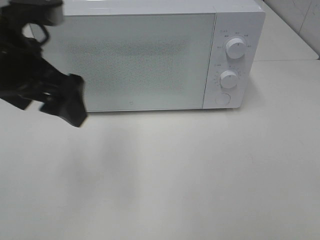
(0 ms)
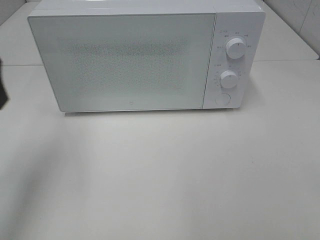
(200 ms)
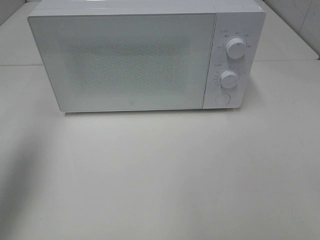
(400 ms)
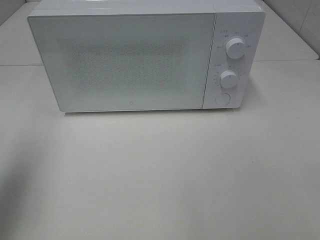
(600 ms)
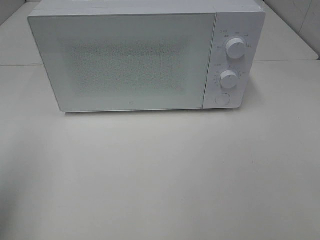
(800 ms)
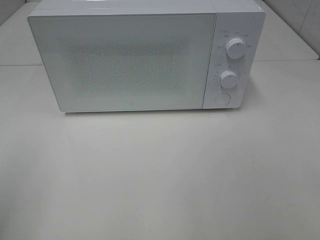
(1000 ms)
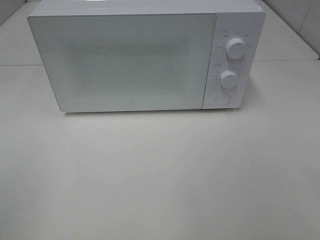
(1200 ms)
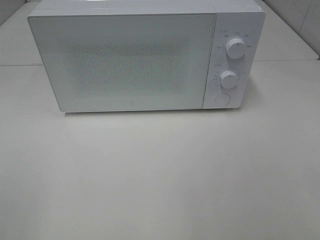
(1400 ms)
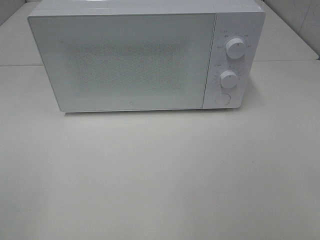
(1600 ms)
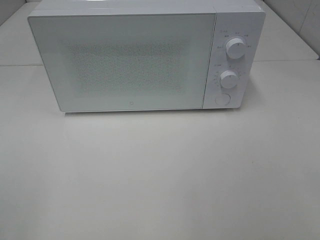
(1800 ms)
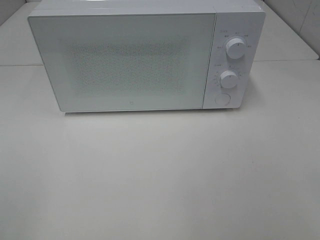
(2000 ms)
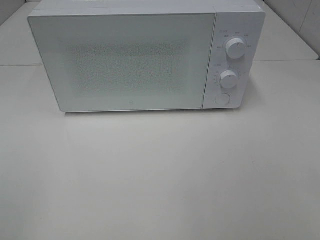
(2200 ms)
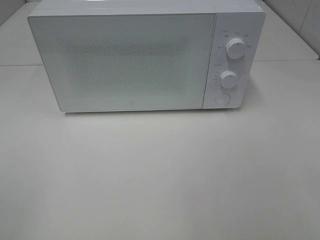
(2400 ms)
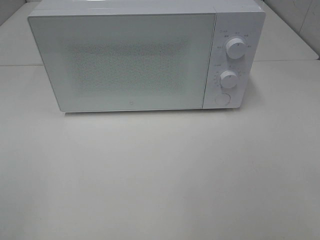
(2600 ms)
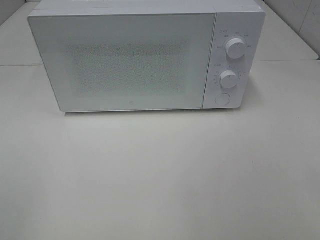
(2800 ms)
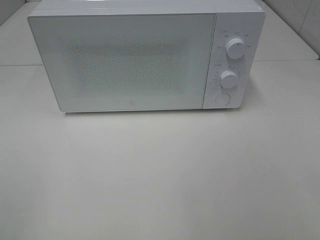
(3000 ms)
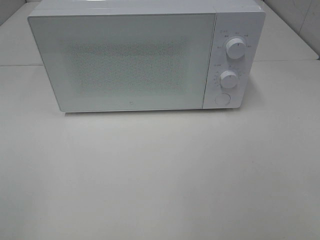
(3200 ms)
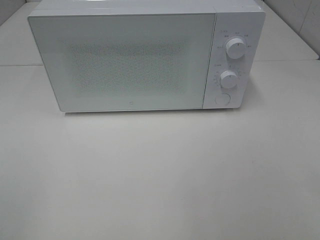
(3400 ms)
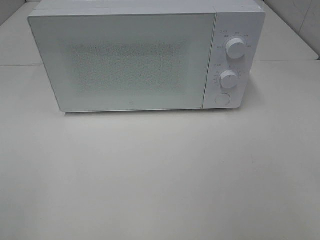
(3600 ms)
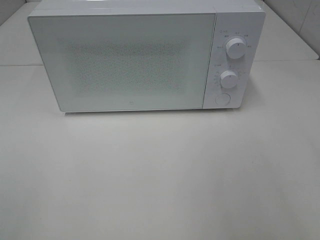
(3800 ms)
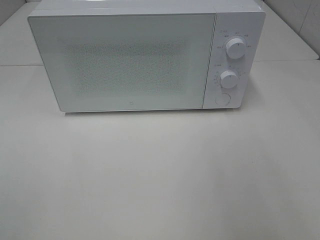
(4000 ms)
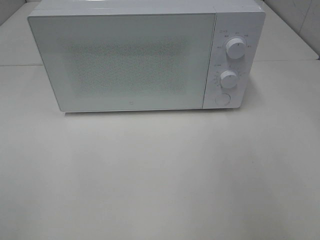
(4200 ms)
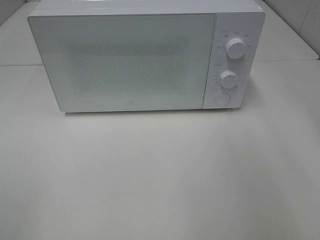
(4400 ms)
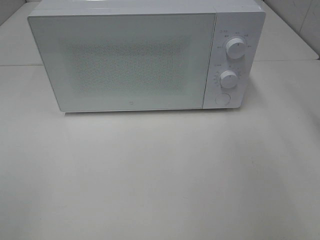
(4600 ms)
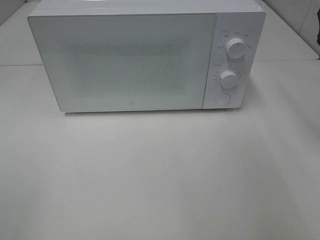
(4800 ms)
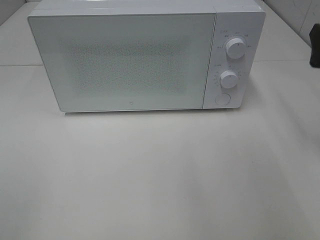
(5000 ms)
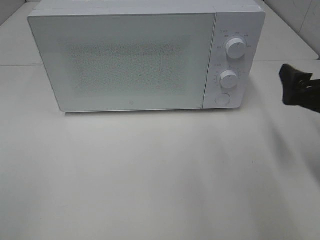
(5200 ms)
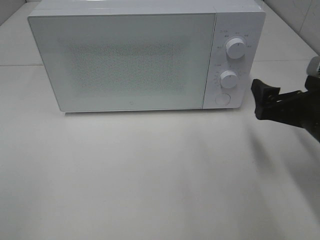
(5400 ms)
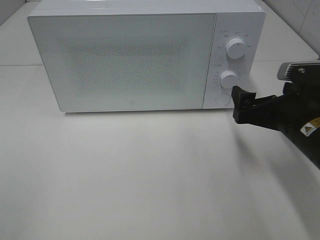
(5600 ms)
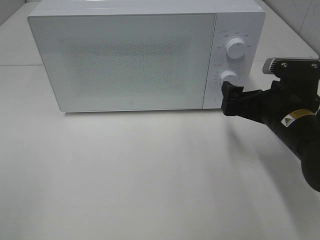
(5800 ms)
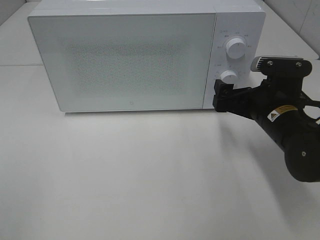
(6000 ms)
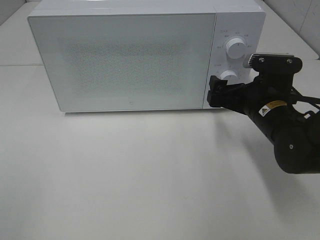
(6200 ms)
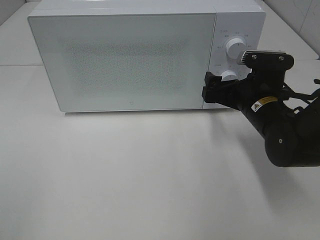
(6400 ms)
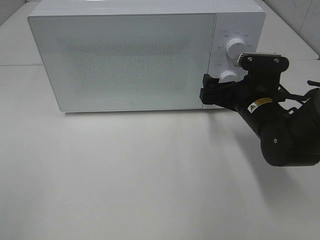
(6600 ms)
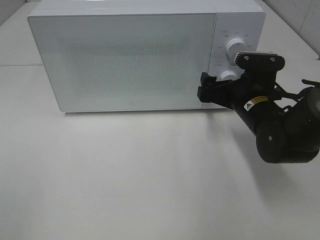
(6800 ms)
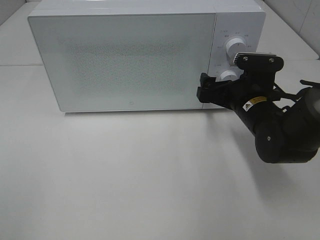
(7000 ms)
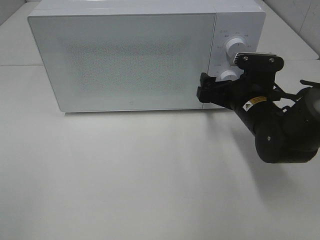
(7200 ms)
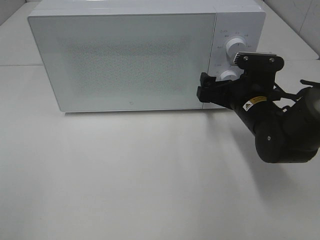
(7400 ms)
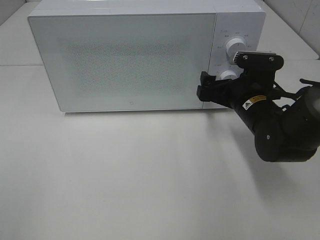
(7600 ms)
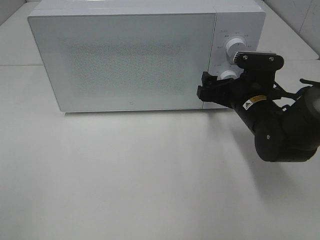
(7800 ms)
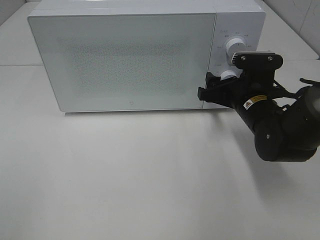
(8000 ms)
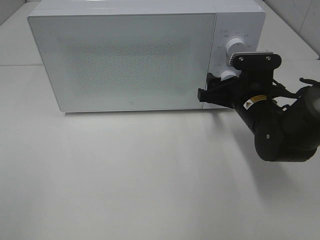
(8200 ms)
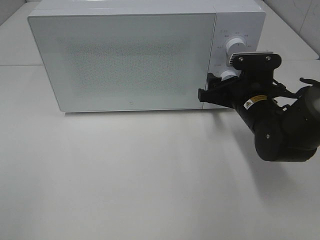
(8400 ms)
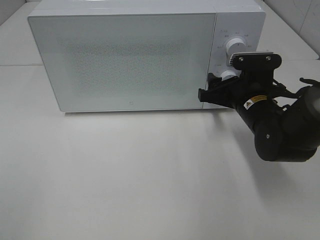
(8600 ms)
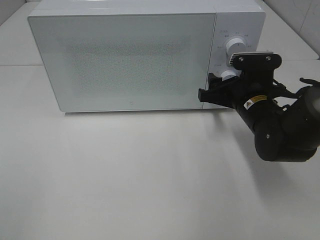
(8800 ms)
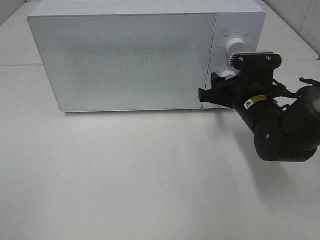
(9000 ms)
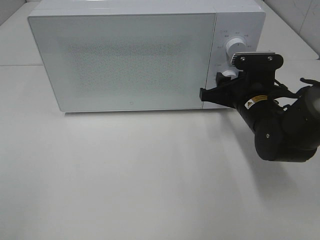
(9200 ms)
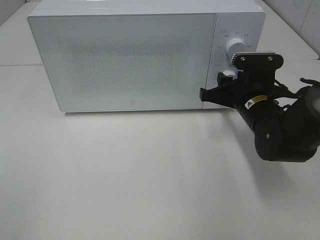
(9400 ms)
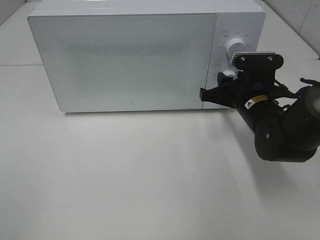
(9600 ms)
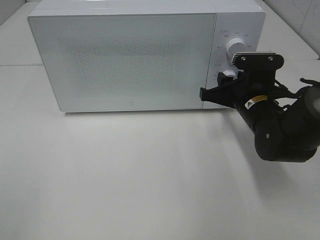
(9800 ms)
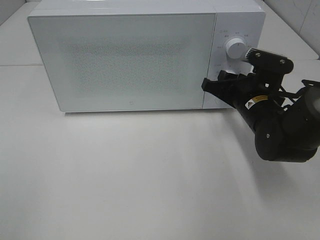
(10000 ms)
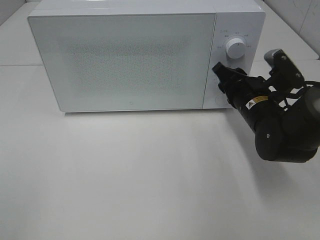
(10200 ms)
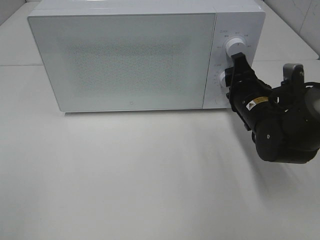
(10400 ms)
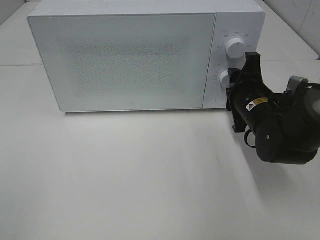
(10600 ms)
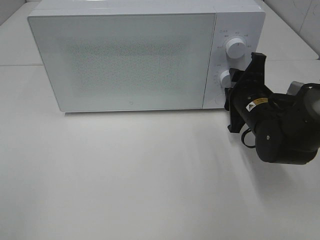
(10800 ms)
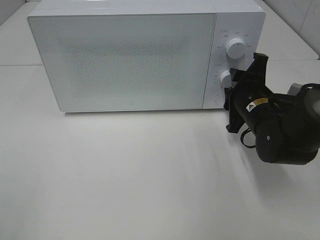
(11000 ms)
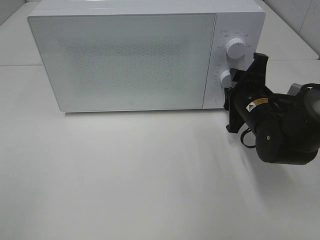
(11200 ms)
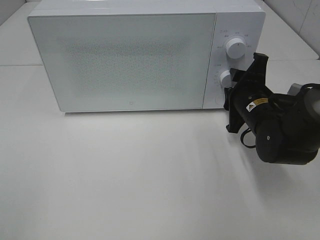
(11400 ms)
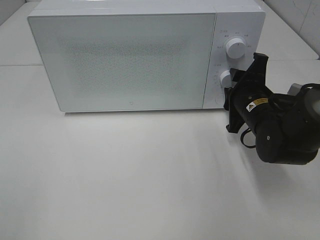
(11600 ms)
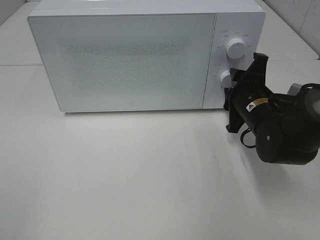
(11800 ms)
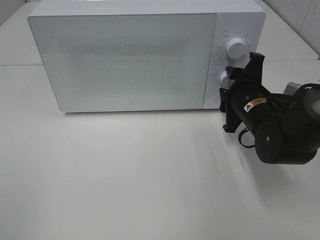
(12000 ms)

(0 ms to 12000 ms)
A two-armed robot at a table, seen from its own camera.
Task of the whole recording: Heat the burger.
Step, 0 ms - 12000 ms: Right hand: twist timer button.
0 ms - 1600 ms: The left gripper goes some 30 cm backward and to the left.
1600 ms - 3000 ms: Both grippers stay put.
4400 ms - 6000 ms: The right gripper is displaced downward and to the left by about 20 cm.
6000 ms - 7600 ms: The grippers stay close to where they were, moving slightly.
7600 ms - 9000 ms: The right gripper closes up.

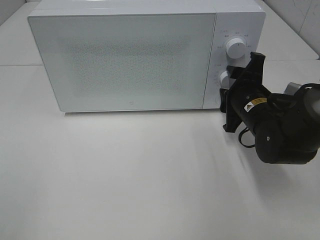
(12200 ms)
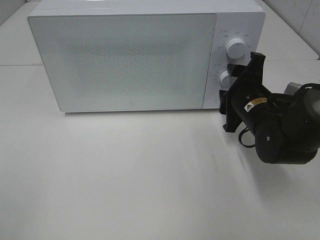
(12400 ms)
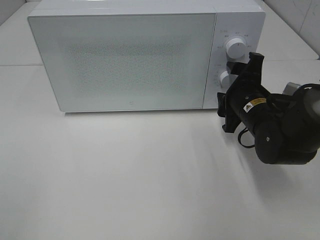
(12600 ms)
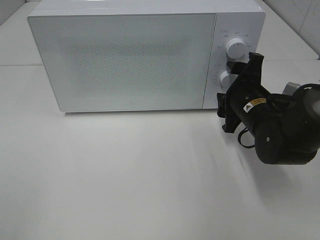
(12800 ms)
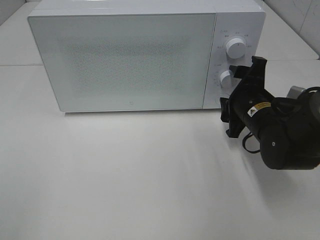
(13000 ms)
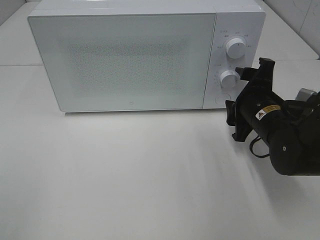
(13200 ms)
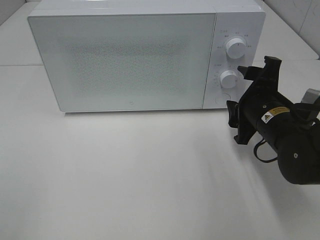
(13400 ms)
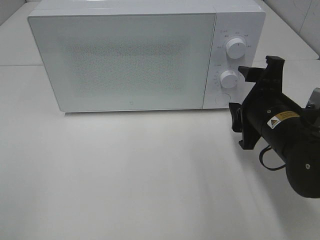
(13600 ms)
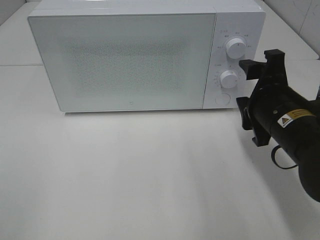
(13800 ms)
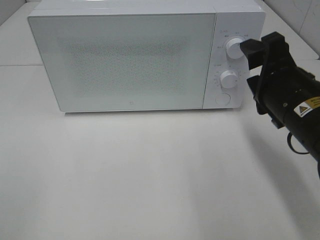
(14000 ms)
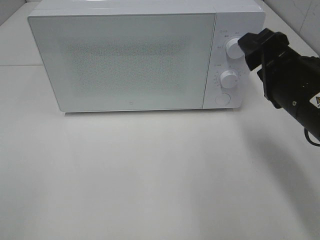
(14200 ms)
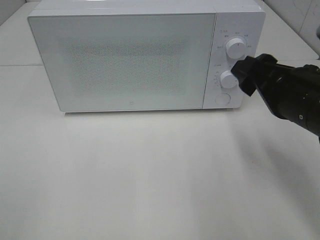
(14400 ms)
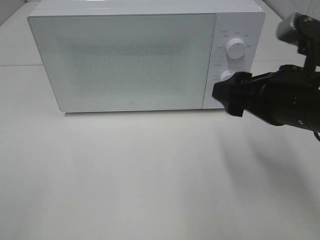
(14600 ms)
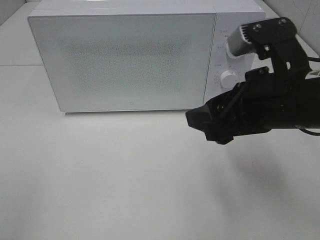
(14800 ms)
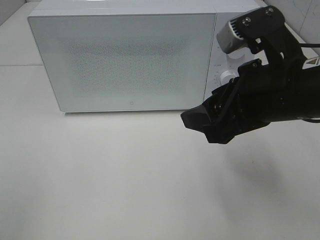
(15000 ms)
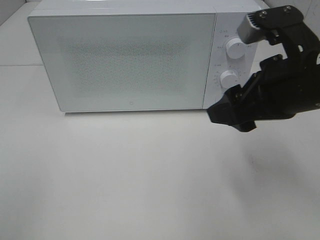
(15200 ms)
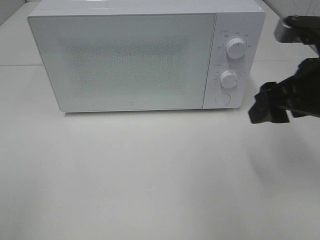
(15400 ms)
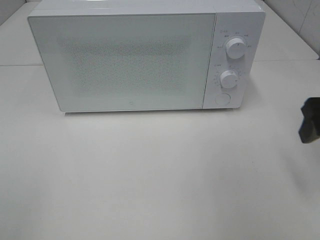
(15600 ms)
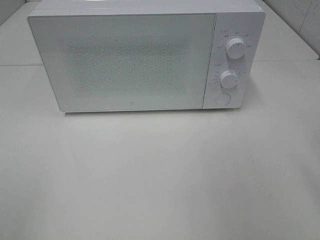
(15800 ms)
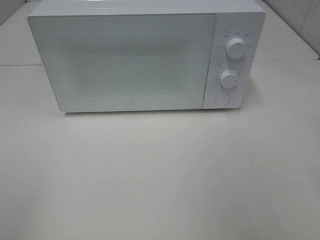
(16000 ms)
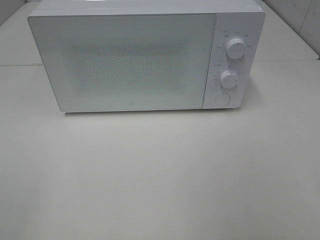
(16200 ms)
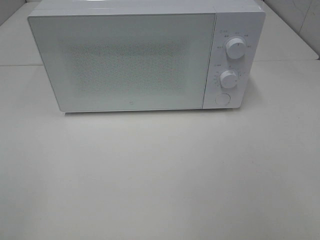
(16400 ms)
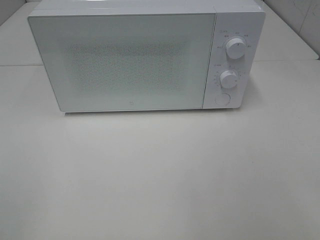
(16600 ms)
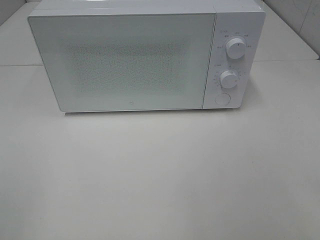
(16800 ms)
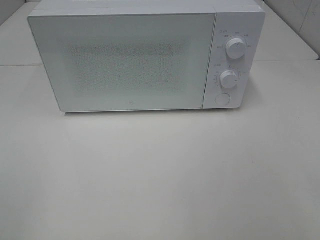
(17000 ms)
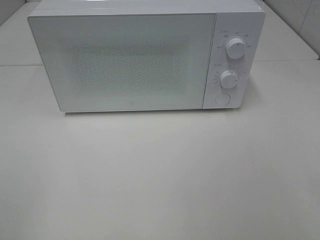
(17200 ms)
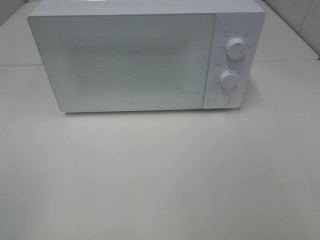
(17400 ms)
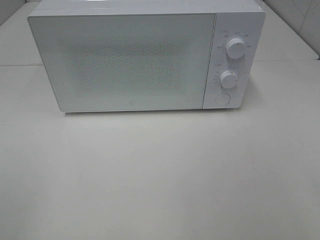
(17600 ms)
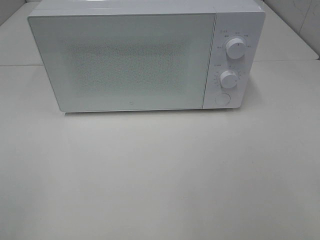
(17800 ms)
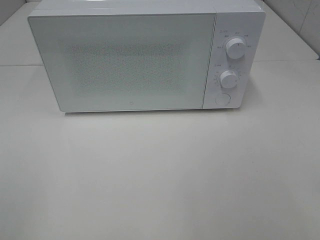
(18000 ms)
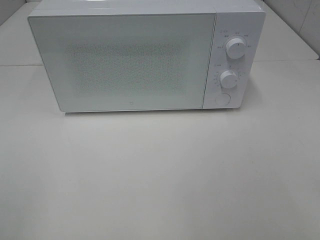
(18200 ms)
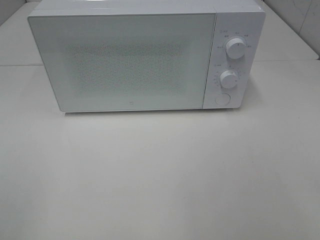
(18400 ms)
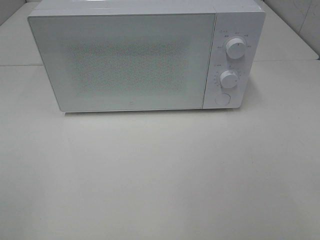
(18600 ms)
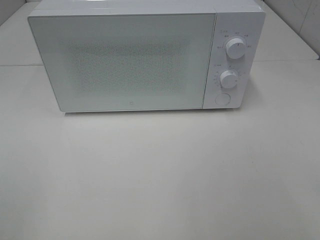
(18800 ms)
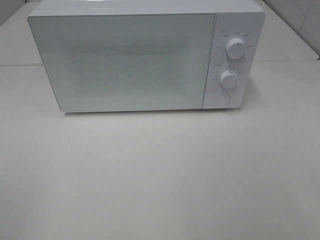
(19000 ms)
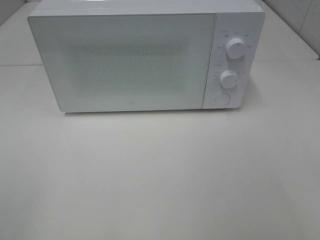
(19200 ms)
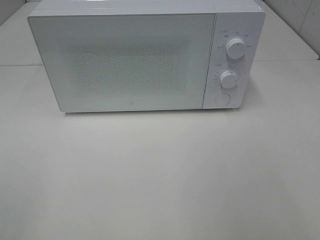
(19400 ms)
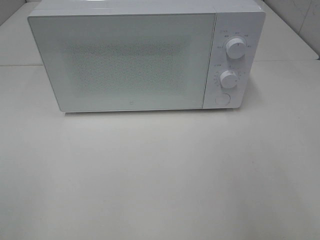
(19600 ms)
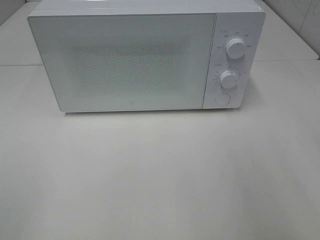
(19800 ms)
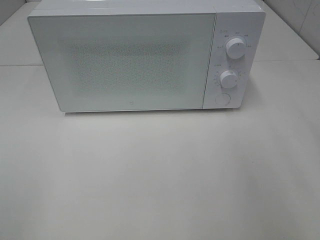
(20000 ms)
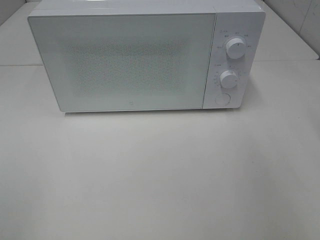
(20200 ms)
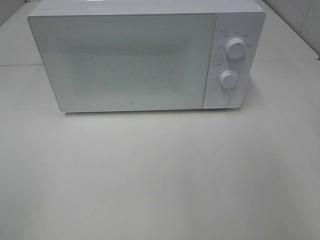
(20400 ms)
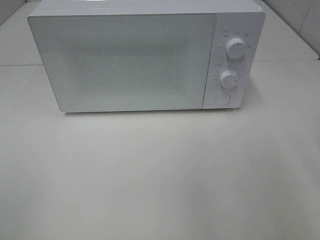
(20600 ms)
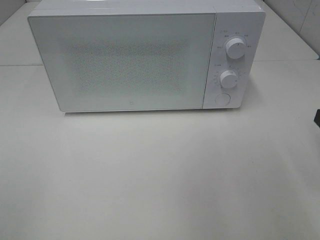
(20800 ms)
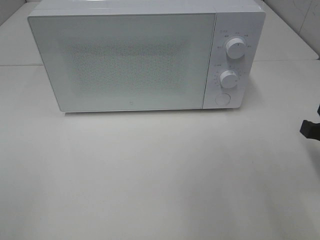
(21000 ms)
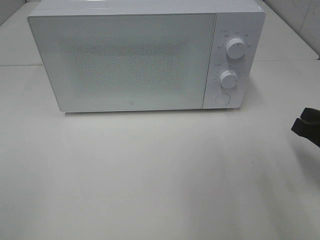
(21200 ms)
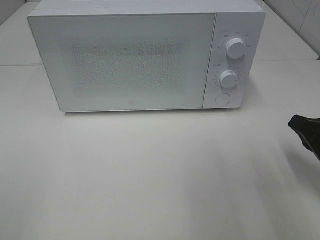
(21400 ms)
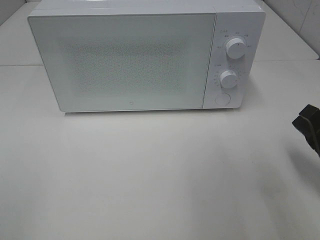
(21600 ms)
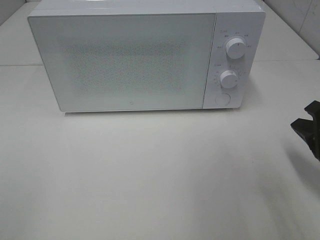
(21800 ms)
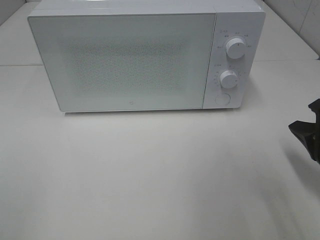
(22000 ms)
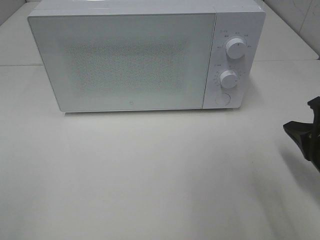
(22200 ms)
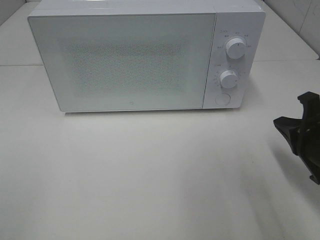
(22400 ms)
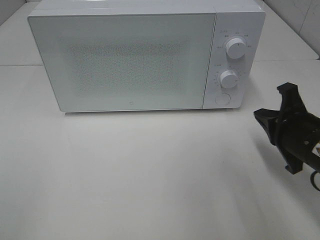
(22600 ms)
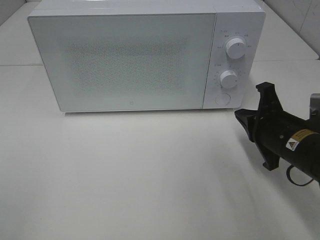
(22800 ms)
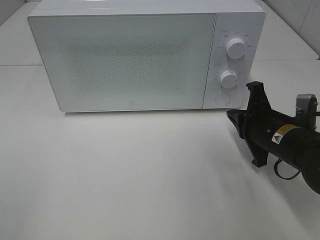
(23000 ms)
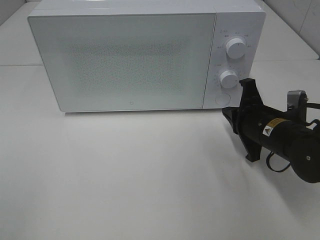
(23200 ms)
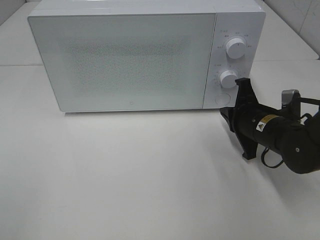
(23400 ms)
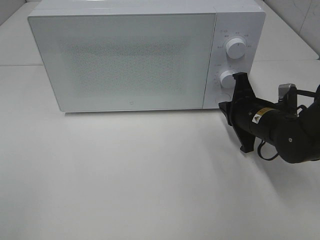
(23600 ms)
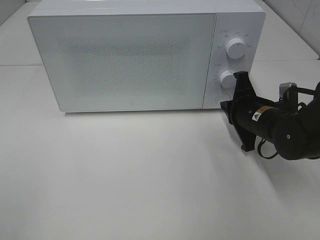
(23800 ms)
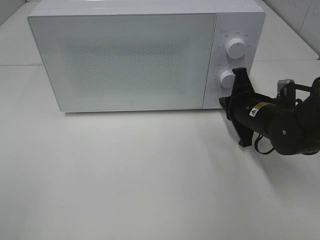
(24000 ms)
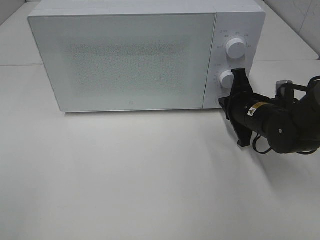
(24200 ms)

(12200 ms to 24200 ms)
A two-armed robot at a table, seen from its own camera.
Task of the whole recording: Heat the burger.
12200 ms - 13800 ms: The right gripper moves backward and upward, some 10 cm.
13800 ms - 15200 ms: The right gripper shifts about 10 cm upward.
15200 ms - 16600 ms: The right gripper travels backward and to the right by about 20 cm.
19800 ms - 21200 ms: The right gripper is displaced downward by roughly 15 cm, and closes its fingers.
21200 ms - 22600 ms: The right gripper heads to the left, covering some 5 cm.
22600 ms - 24200 ms: The right gripper goes approximately 10 cm forward.
